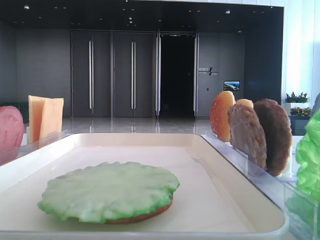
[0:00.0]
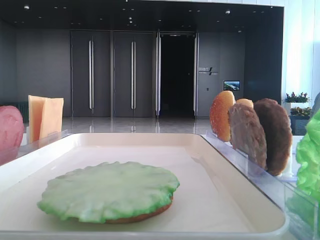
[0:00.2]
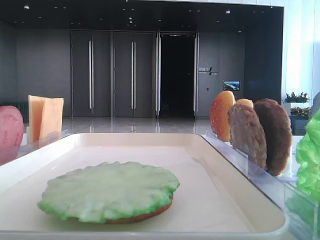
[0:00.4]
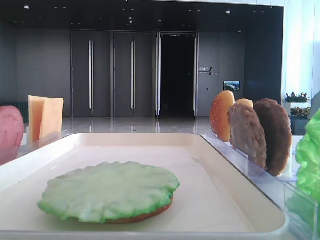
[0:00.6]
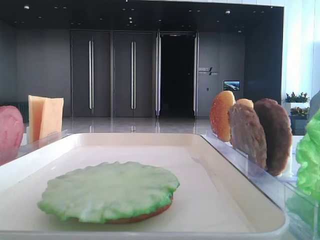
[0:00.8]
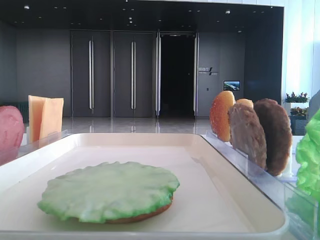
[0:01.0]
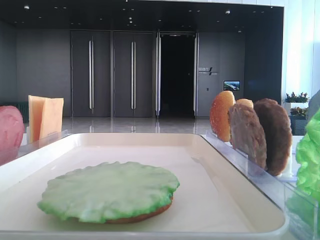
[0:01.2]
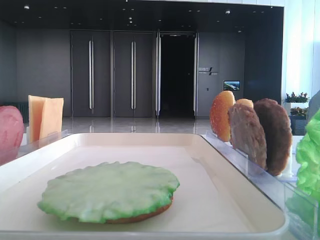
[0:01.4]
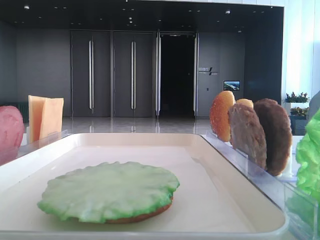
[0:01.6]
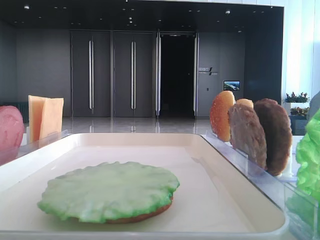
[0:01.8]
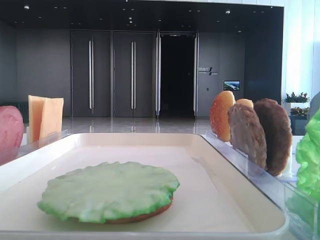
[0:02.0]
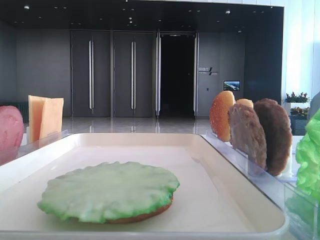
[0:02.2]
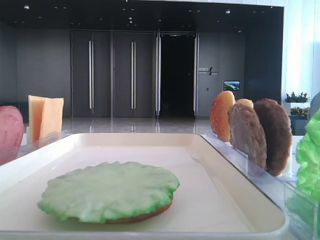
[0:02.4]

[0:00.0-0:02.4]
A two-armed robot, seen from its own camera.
0:01.2 to 0:02.4: Both grippers stay put.

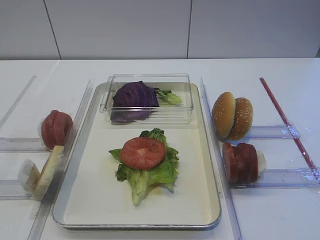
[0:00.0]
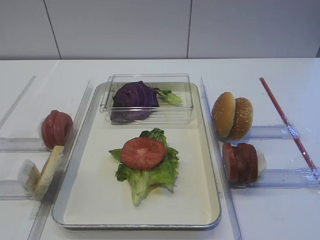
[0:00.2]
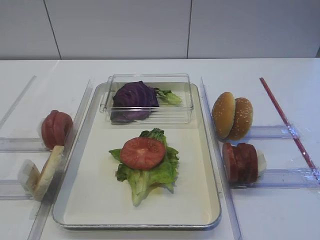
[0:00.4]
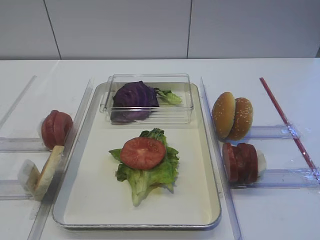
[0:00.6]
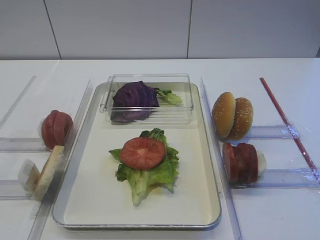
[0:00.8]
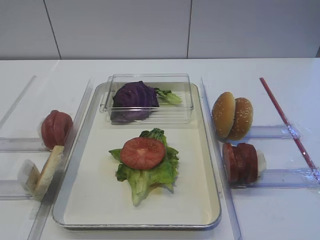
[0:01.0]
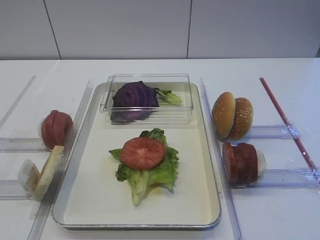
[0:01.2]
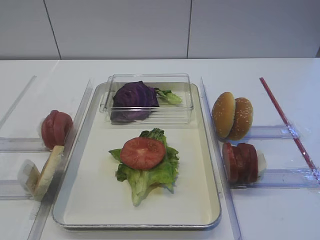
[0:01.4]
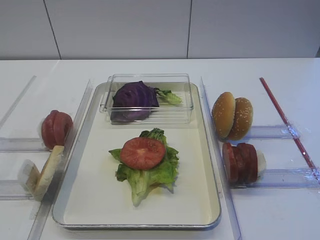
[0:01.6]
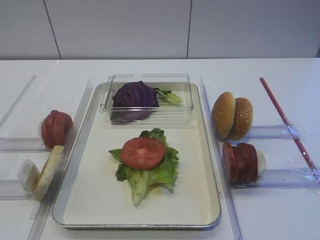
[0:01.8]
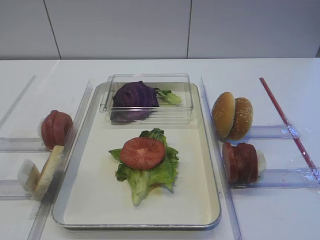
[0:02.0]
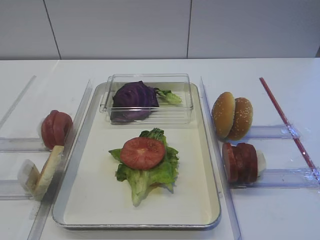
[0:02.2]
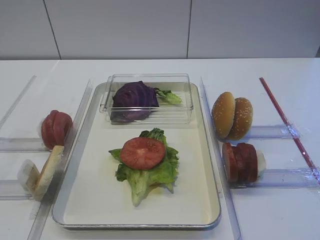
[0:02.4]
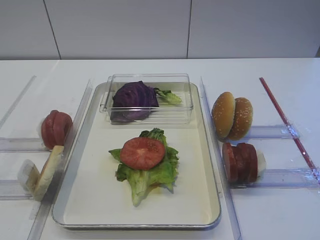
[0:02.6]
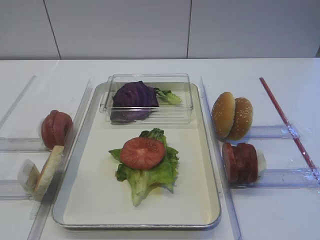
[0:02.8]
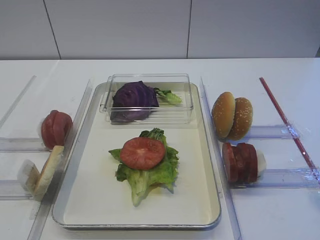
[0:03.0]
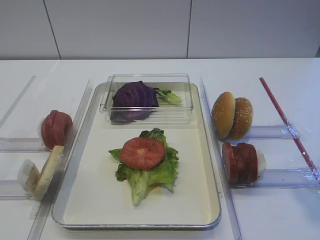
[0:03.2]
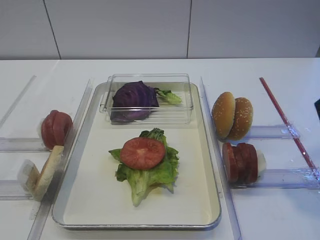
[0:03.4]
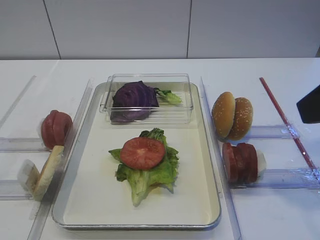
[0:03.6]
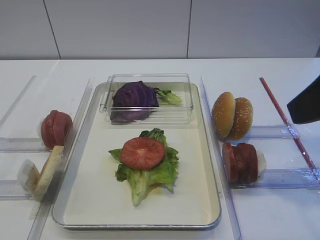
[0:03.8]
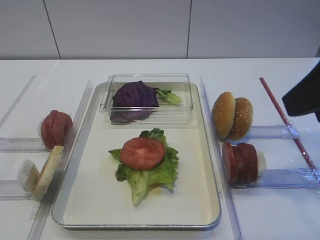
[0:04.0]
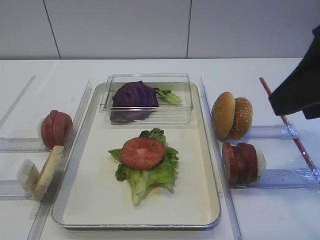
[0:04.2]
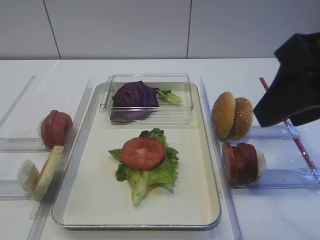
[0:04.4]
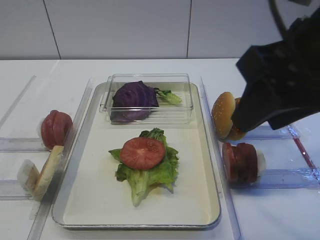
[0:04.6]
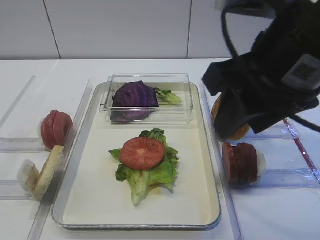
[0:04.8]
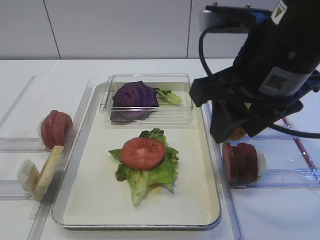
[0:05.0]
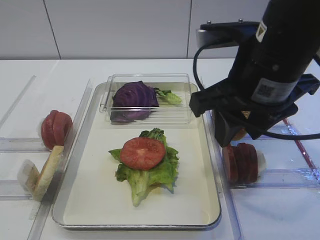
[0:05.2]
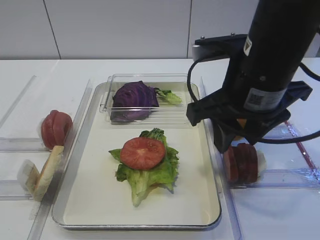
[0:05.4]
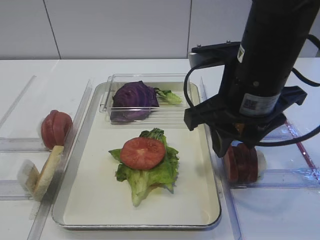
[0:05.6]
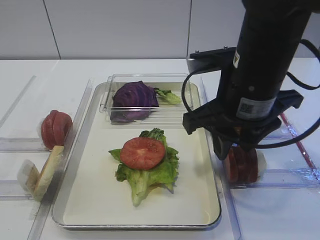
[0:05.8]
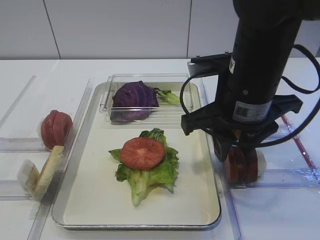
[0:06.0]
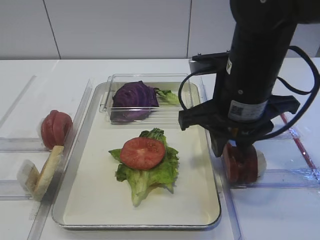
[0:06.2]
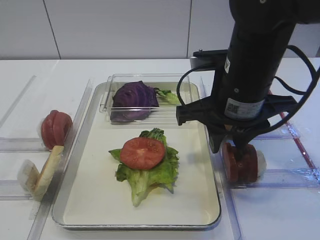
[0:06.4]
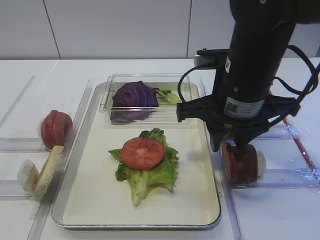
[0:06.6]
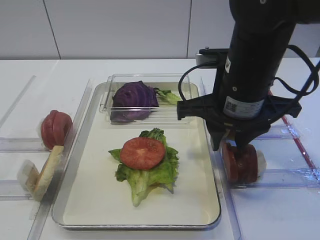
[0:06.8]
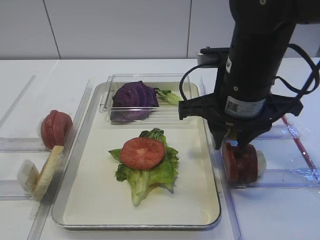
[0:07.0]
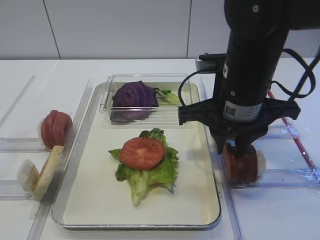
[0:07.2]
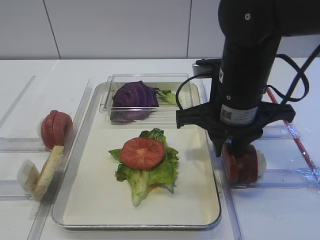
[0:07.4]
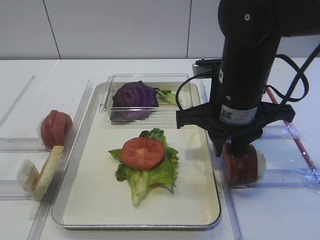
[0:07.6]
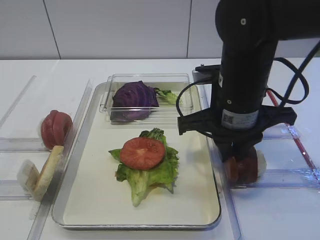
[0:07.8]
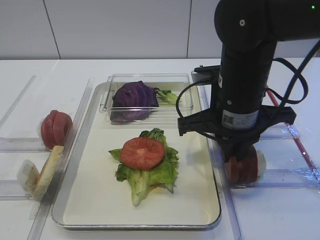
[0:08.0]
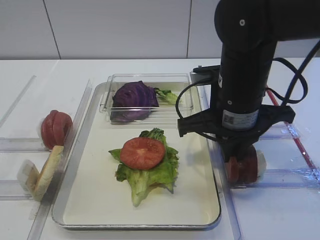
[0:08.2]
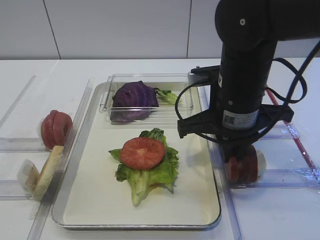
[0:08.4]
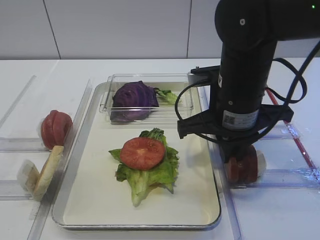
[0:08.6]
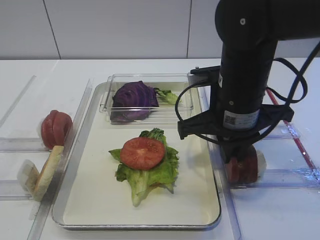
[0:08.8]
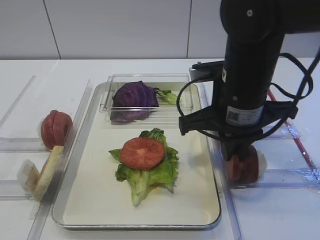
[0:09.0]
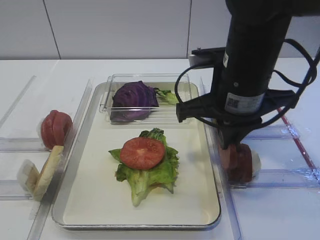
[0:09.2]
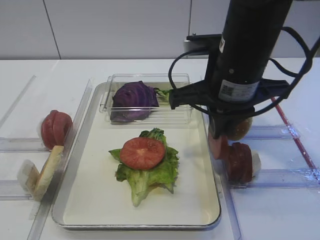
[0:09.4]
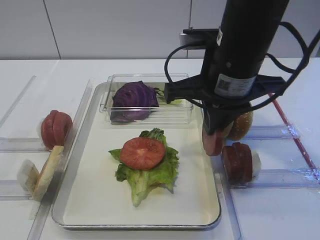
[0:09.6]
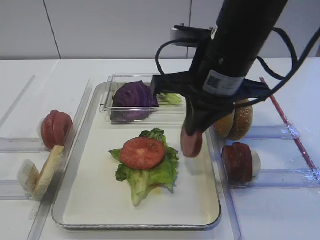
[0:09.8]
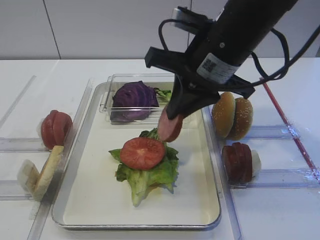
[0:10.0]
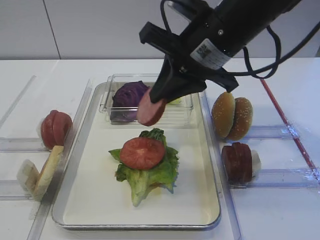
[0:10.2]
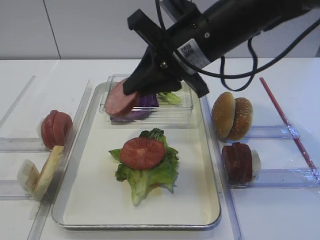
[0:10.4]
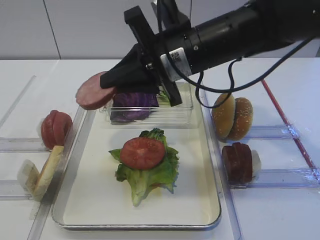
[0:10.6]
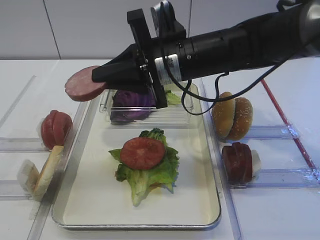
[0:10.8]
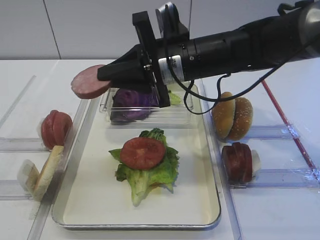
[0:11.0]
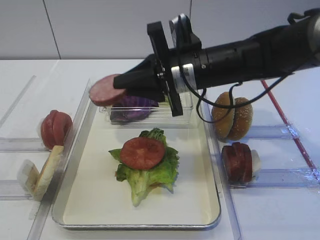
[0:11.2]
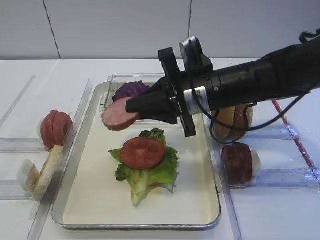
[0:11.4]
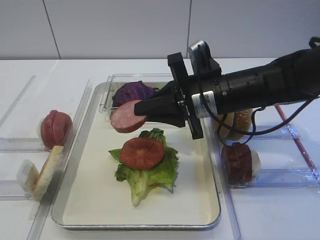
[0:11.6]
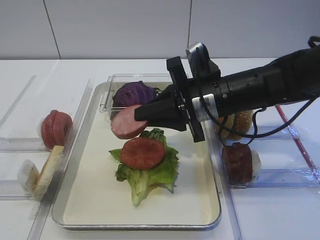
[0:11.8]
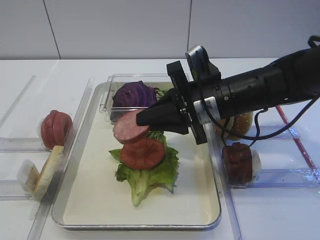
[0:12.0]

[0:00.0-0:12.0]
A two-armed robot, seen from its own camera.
Step, 0:00.0 to 0:09.0: Pick up the cutlet with the right gripper.
0:03.0 to 0:04.4: The right gripper travels forward and to the left by about 10 cm.
0:04.4 to 0:06.0: The right gripper travels downward, forward and to the left by about 15 cm.
0:06.0 to 0:07.6: There are only small adjustments of the grippers.
0:07.6 to 0:09.0: The right gripper closes its fingers.
0:09.0 to 0:10.4: The right gripper shifts about 5 cm upward.
0:10.4 to 0:12.0: The right gripper goes about 10 cm downward.

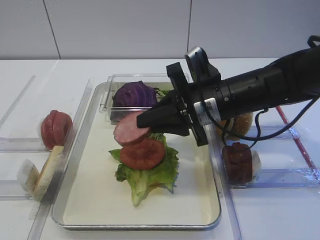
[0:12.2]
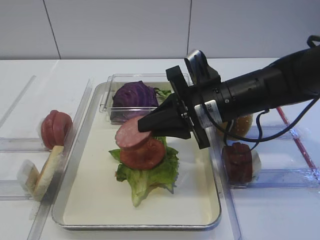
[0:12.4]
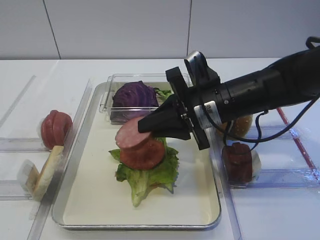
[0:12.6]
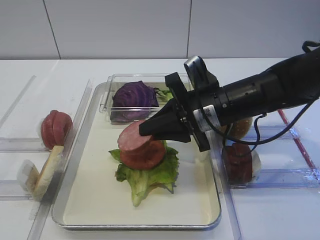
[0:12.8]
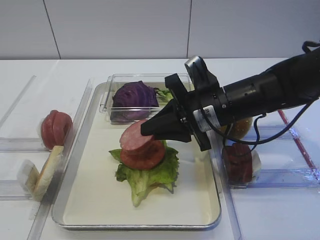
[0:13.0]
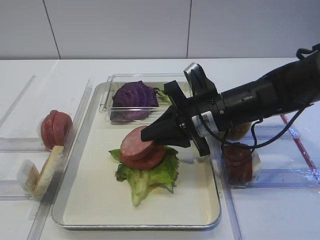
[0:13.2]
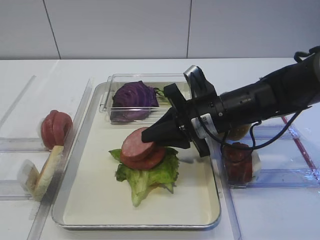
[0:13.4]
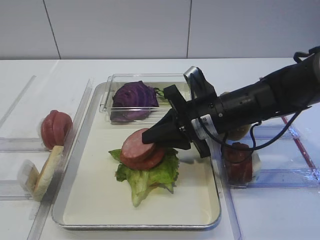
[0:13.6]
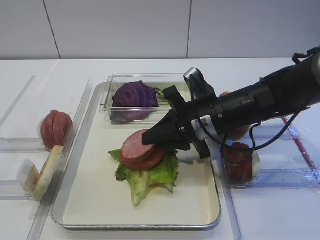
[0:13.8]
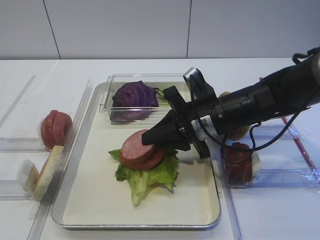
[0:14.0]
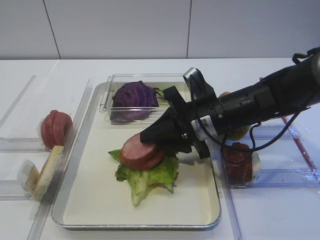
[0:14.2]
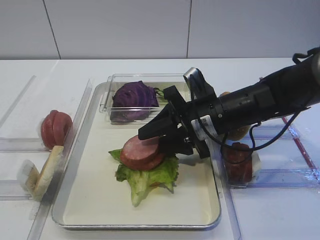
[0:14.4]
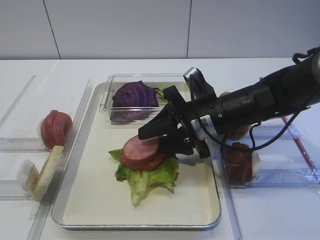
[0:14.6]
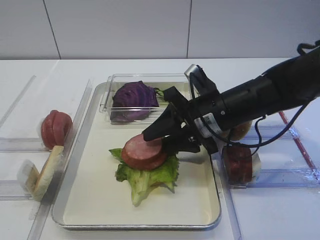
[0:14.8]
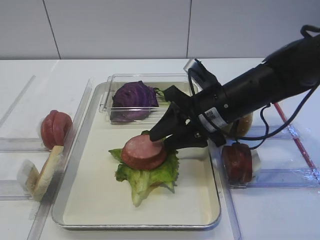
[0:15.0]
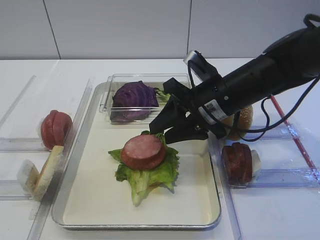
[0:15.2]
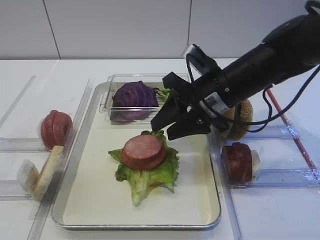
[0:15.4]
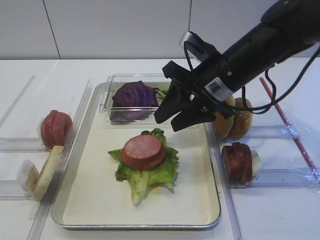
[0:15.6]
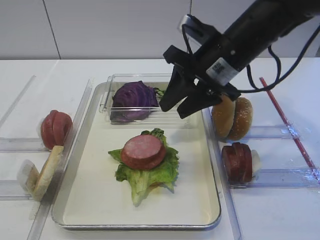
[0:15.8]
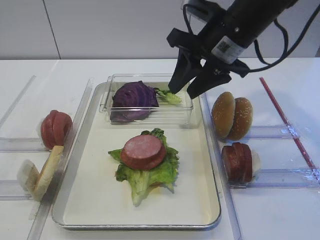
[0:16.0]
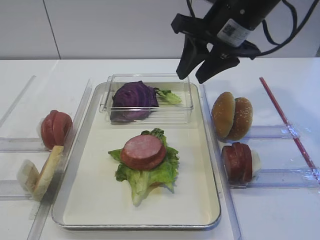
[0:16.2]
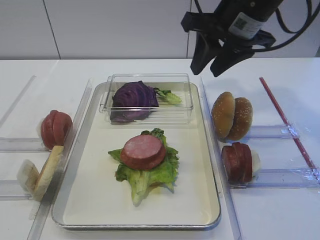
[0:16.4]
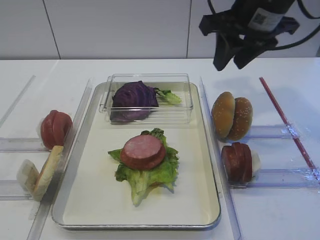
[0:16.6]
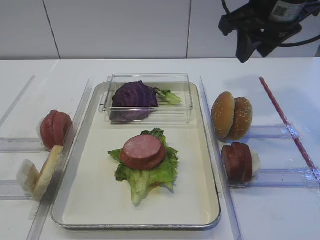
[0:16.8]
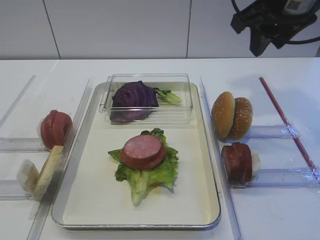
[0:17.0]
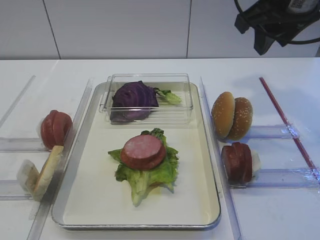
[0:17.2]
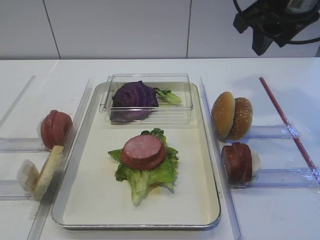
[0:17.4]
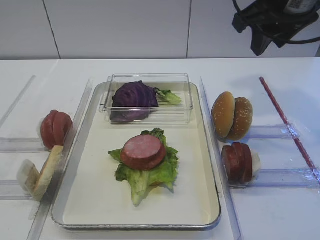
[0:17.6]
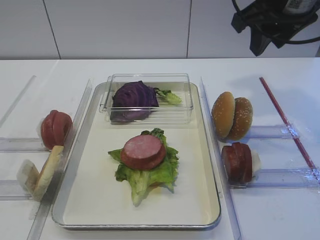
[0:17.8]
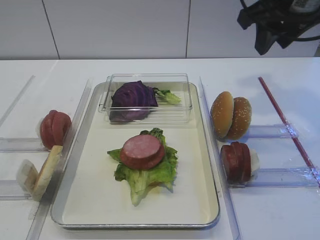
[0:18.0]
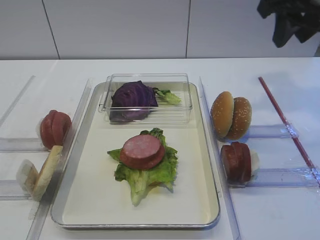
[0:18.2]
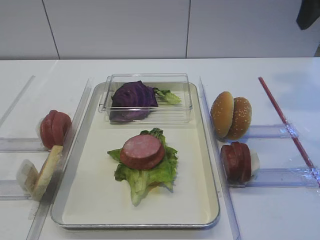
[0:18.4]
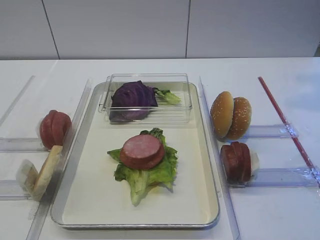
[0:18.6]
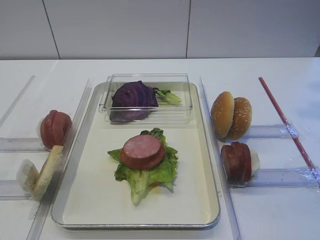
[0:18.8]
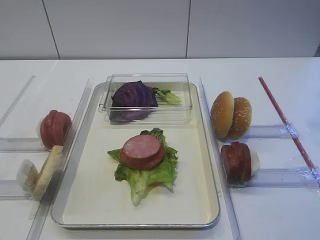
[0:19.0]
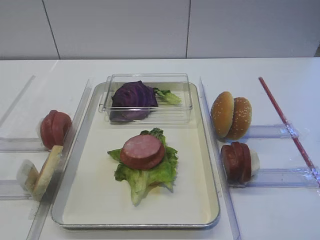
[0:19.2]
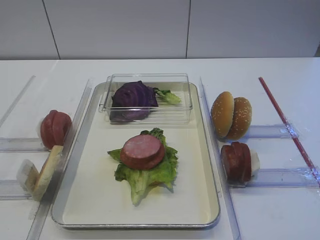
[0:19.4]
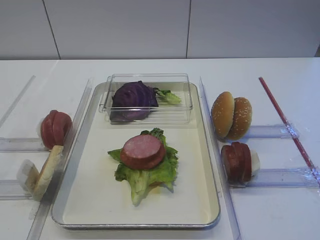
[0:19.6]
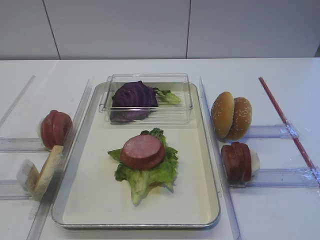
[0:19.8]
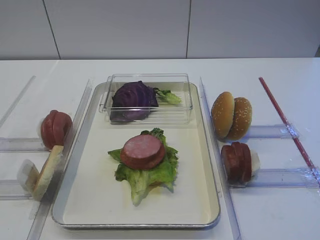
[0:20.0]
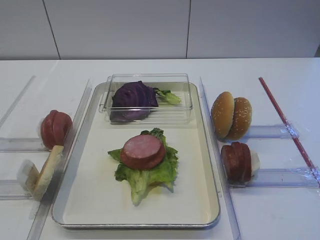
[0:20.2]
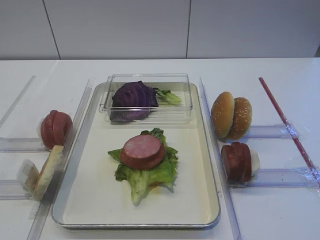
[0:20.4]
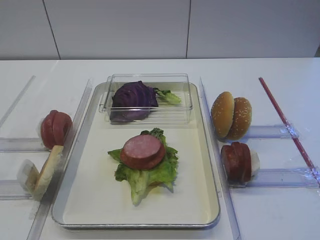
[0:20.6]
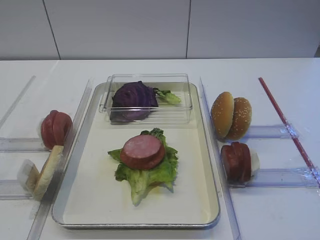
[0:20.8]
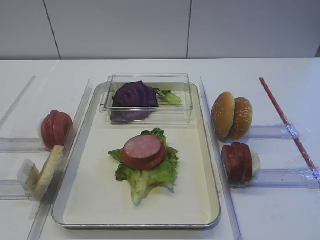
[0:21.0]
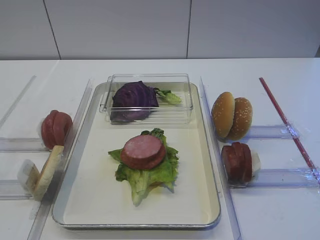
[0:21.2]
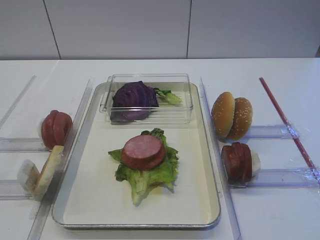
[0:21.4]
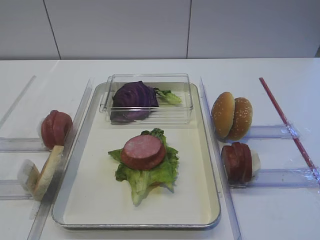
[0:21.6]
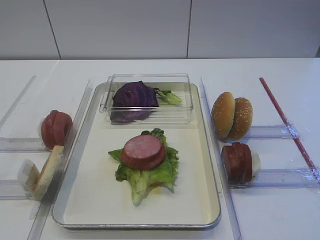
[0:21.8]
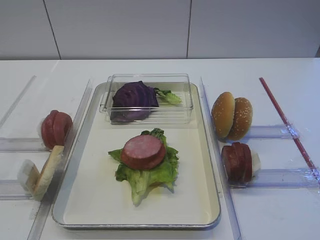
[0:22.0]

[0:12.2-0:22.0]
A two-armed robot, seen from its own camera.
Step, 0:12.2 to 0:16.2: Place the cutlet on the tomato slice with the right gripper.
0:12.2 to 0:13.6: There are only small adjustments of the grippers.
0:13.6 to 0:15.0: The right gripper opens up.
0:15.0 to 0:16.4: The right gripper moves upward, about 15 cm.
0:16.4 to 0:17.8: The right gripper shifts by roughly 5 cm.
0:17.8 to 0:19.2: The right gripper moves backward, to the right and upward, roughly 20 cm.
